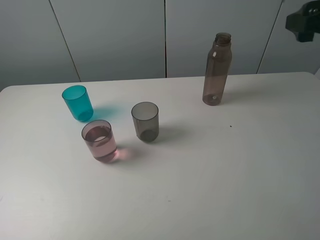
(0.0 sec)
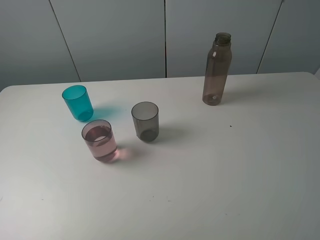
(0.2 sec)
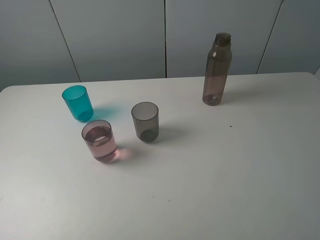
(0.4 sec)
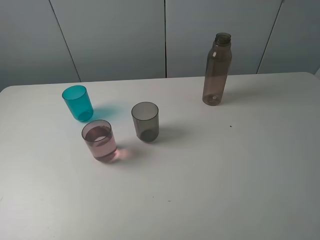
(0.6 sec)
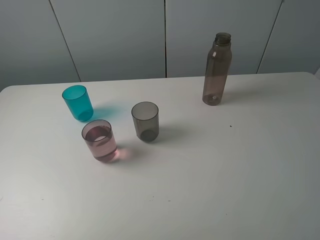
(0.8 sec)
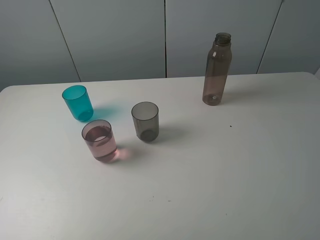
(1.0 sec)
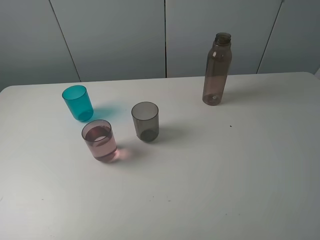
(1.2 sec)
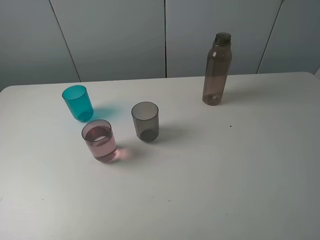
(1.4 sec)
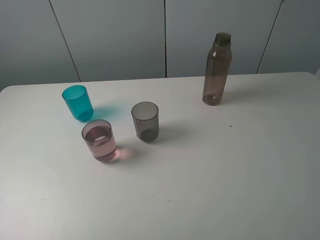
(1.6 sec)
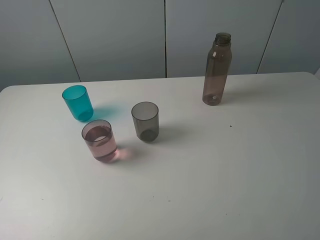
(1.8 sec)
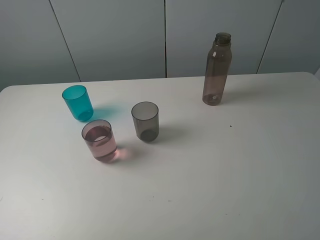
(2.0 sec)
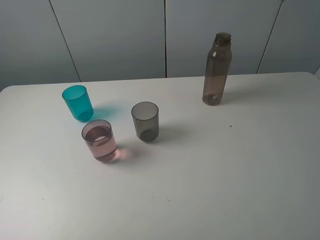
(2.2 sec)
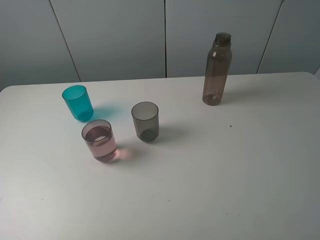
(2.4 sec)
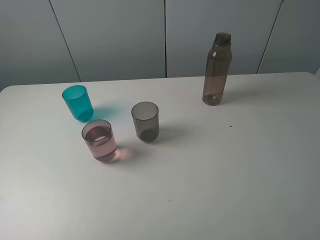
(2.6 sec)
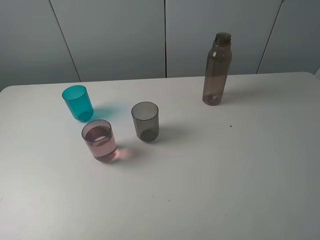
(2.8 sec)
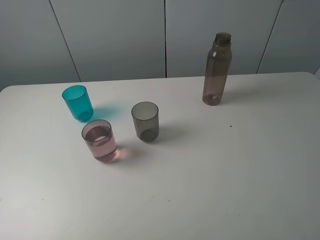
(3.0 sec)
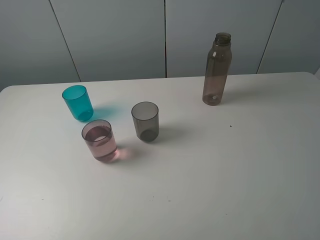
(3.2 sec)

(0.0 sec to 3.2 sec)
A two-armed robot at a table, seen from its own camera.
Task of the whole recording: pick up the bottle filled with water and pour water into the middle cup of the three cups.
0.0 sec - 1.6 sec: The right gripper heads backward, covering some 25 cm.
1.6 sec - 3.2 sec: Both grippers stay put.

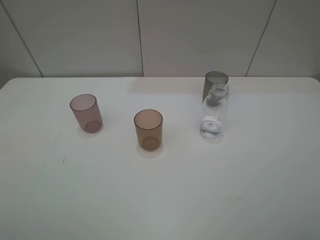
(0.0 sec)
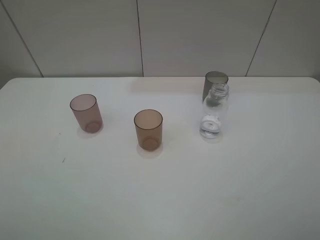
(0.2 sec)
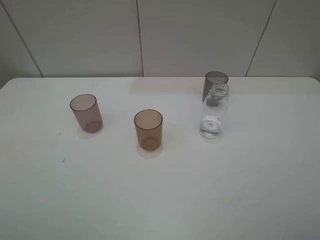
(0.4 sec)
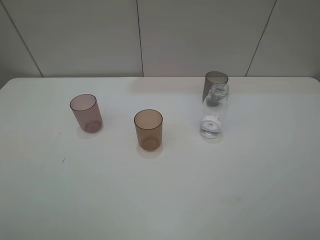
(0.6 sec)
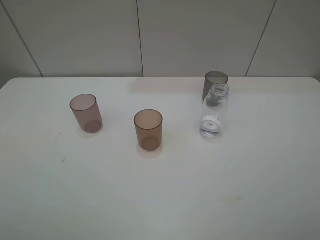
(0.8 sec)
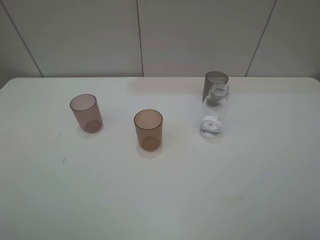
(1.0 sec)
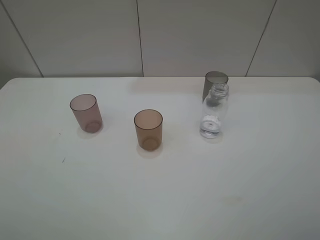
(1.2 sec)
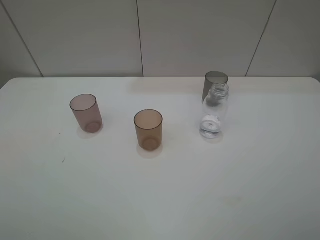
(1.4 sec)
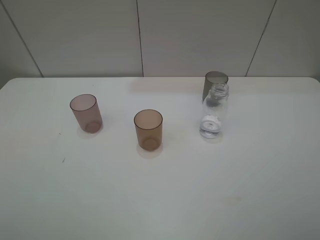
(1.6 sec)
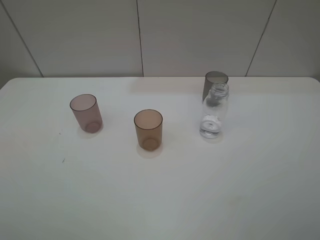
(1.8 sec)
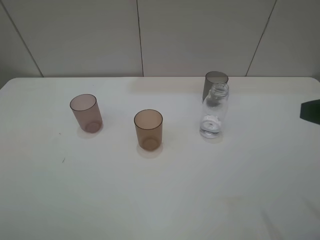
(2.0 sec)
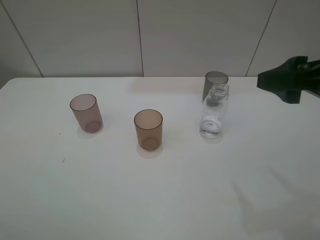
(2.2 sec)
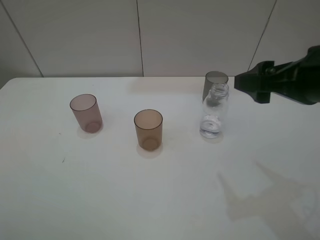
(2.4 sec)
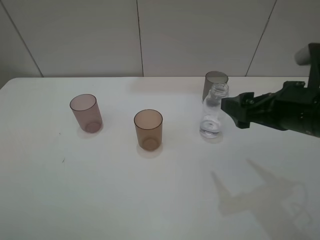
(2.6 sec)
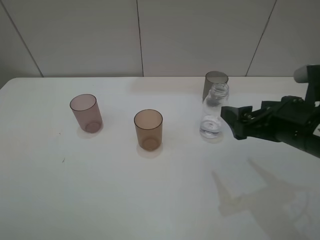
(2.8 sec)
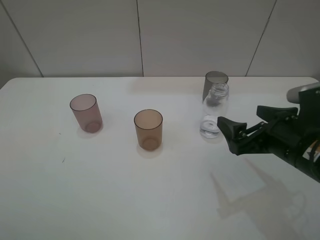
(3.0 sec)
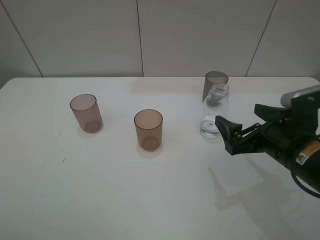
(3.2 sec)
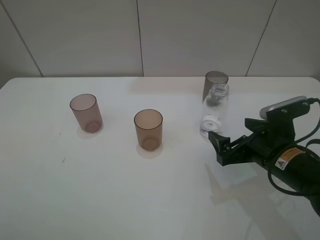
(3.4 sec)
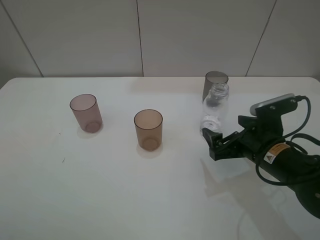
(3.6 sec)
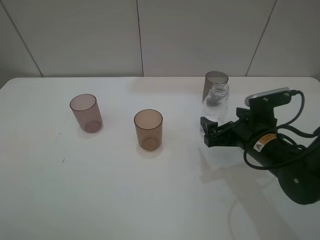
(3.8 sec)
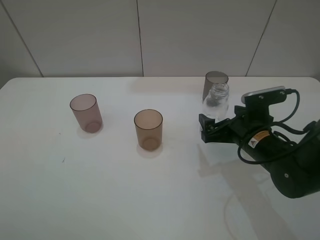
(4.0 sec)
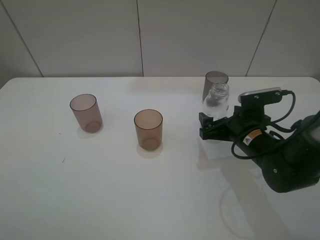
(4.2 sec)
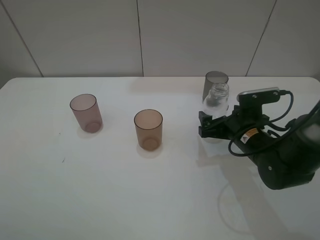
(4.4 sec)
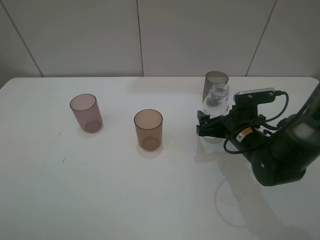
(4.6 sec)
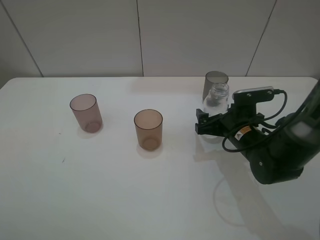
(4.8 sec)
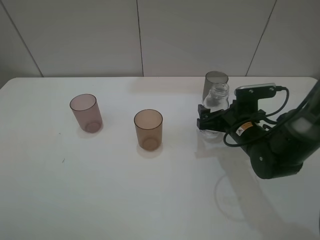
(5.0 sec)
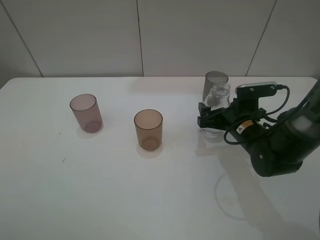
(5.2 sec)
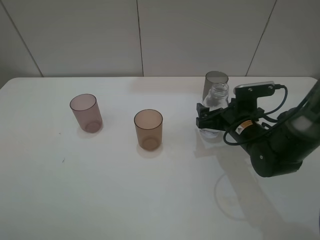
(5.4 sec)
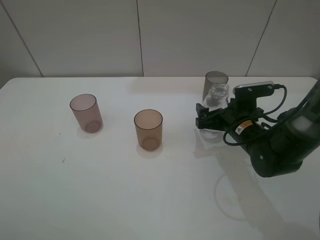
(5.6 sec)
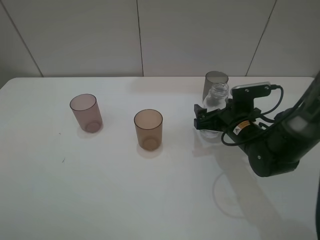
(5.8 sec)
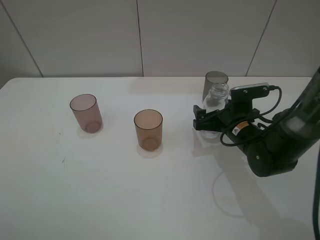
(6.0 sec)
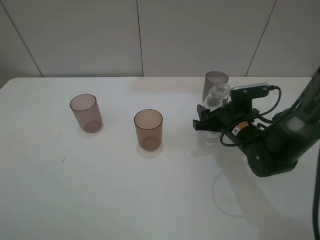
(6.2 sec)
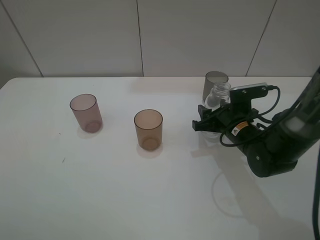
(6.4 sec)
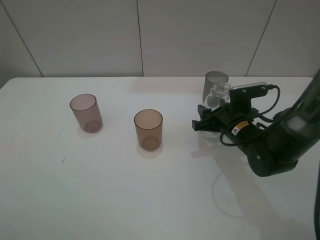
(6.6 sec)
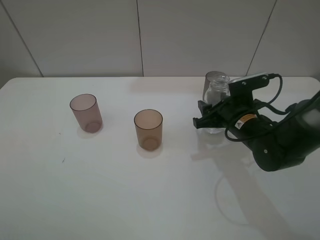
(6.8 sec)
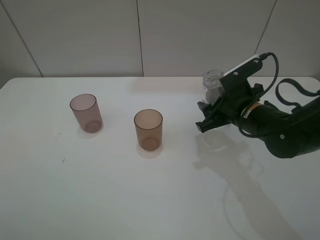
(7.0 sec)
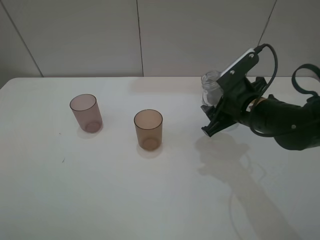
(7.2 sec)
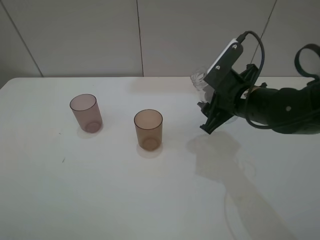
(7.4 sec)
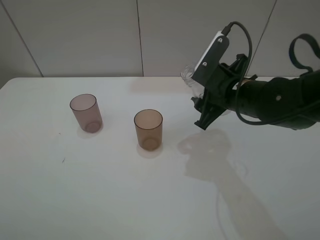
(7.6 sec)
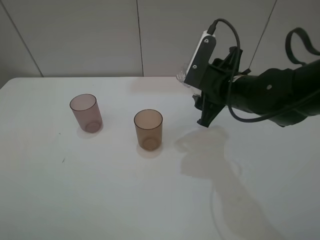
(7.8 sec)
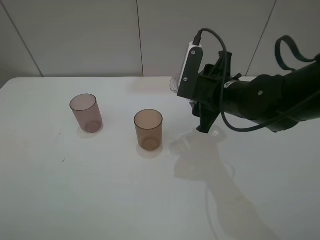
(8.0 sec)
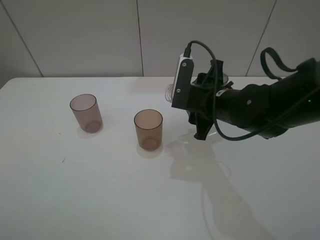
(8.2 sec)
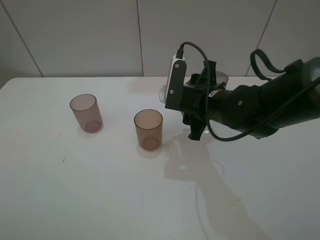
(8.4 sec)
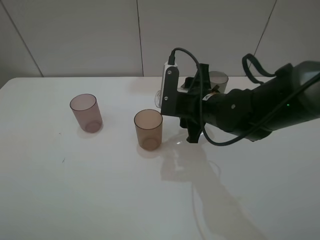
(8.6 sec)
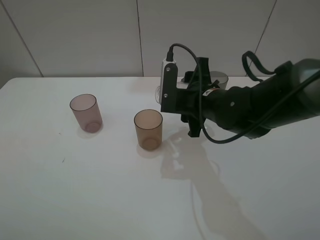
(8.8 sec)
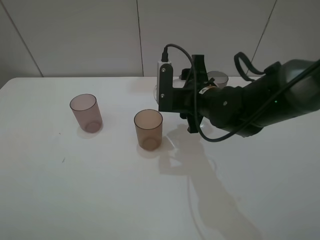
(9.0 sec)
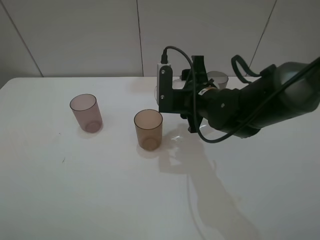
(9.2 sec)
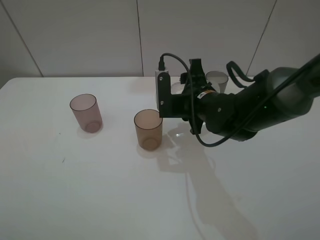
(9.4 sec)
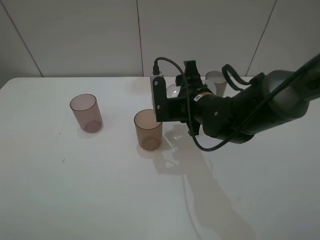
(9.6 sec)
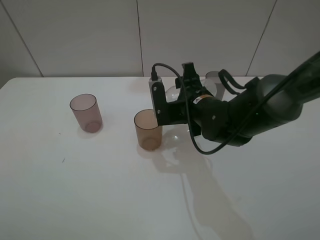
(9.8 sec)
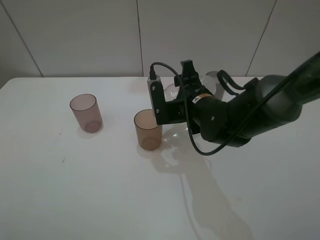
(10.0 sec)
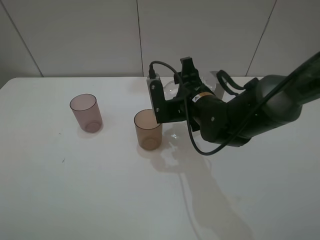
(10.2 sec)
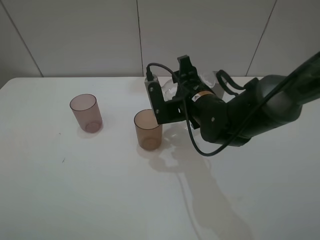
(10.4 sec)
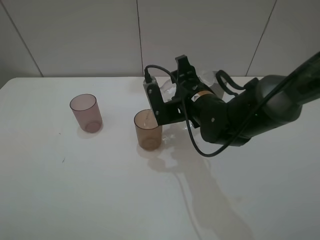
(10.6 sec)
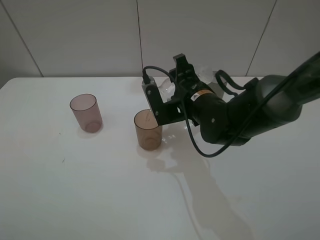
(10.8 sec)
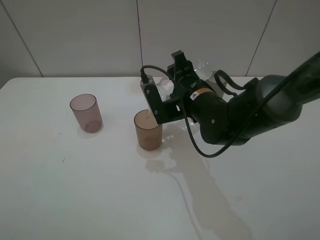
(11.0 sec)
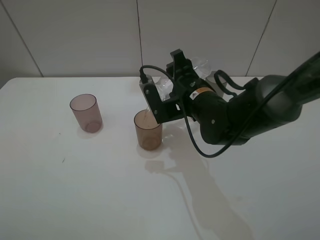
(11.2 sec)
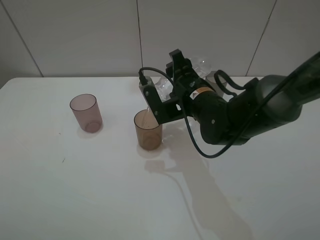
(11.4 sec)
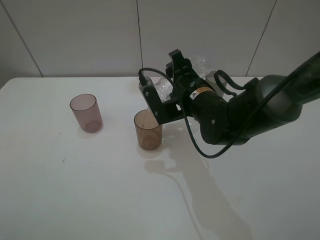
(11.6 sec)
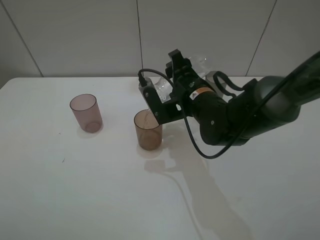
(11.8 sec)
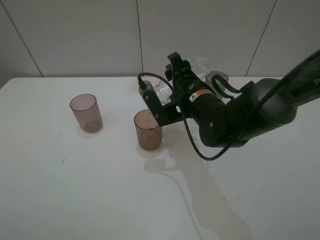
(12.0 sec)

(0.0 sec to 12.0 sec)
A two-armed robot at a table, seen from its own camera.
Task of the whole recording: pick up the bottle filled with water and pour water into the middle cup of the three cups.
Step, 0.0 sec - 6.4 sec: Grasp the transparent bottle with the right gripper.
Step, 6.6 sec - 10.0 sec: Pour water from transparent bottle tobrown cup with the right gripper.
0.0 sec - 1.6 sec: Both grippers stay put.
1.6 sec - 3.0 sec: The right gripper goes some 25 cm forward, downward and to the left.
3.0 sec - 4.4 sec: The right gripper shifts about 10 cm forward and downward.
4.4 sec - 6.0 sec: There are only small adjustments of the grippers.
6.0 sec - 7.6 sec: The right gripper is displaced upward by approximately 10 cm, and closes up.
7.6 sec - 9.0 sec: The right gripper shifts approximately 5 cm to the left.
9.0 sec - 10.4 sec: The grippers make only small movements.
10.4 sec - 12.0 sec: The grippers move only a little.

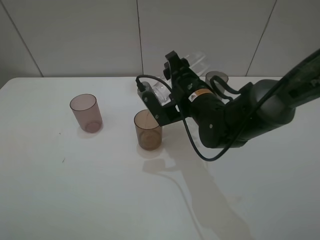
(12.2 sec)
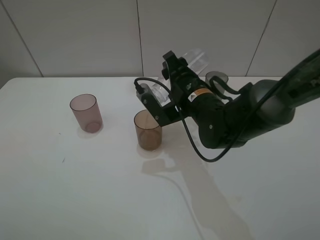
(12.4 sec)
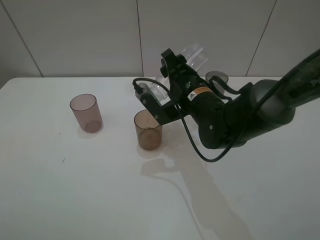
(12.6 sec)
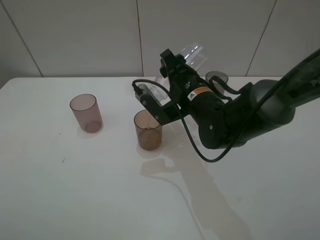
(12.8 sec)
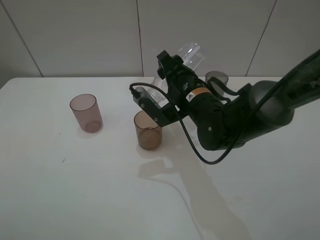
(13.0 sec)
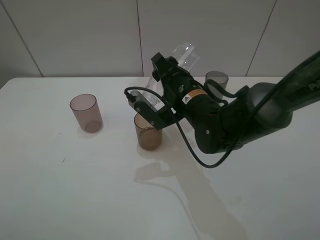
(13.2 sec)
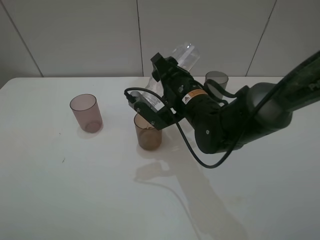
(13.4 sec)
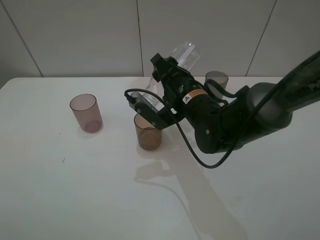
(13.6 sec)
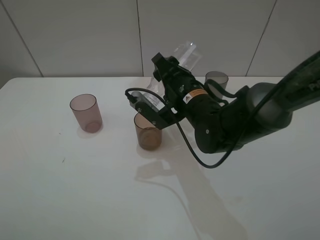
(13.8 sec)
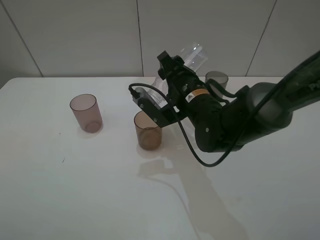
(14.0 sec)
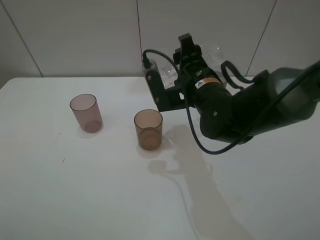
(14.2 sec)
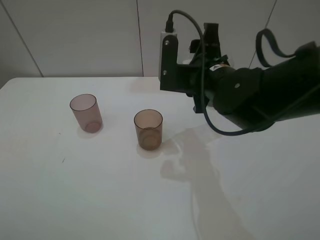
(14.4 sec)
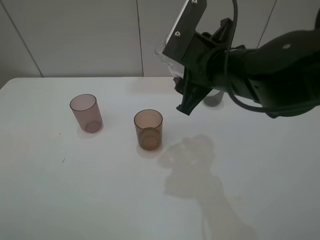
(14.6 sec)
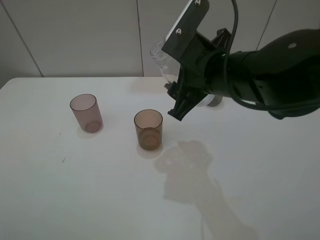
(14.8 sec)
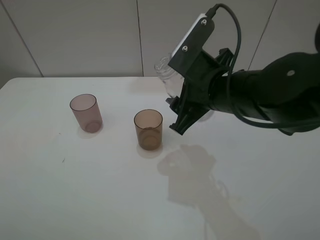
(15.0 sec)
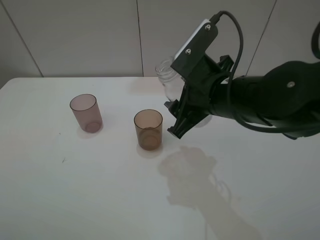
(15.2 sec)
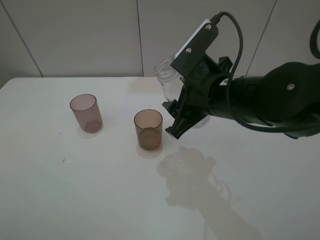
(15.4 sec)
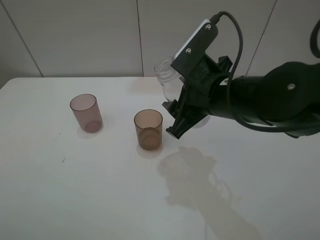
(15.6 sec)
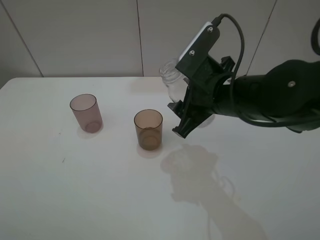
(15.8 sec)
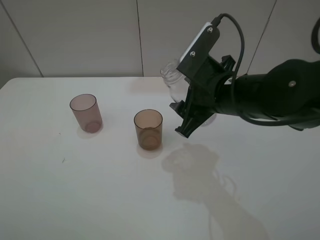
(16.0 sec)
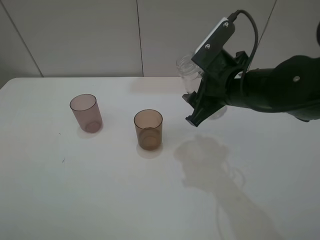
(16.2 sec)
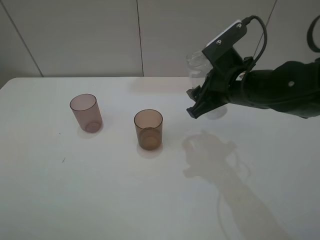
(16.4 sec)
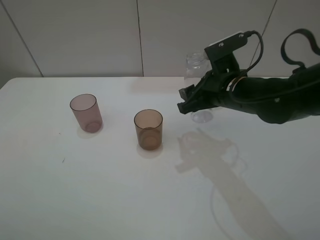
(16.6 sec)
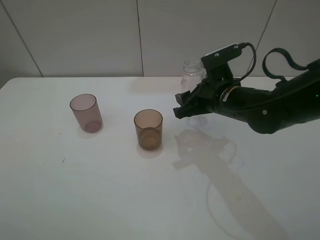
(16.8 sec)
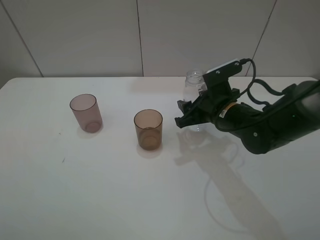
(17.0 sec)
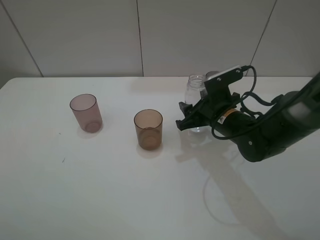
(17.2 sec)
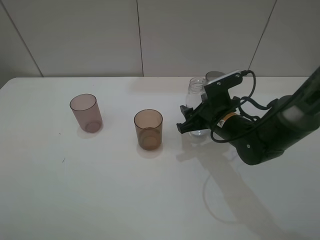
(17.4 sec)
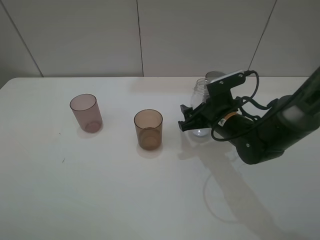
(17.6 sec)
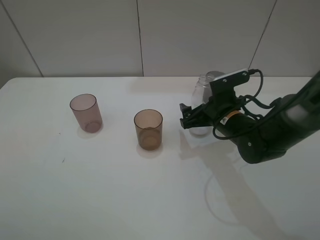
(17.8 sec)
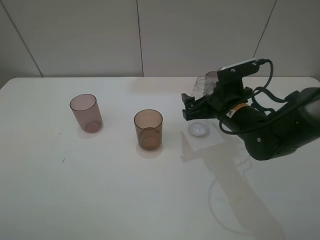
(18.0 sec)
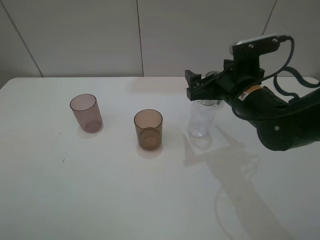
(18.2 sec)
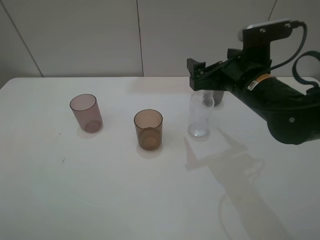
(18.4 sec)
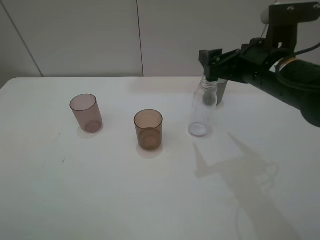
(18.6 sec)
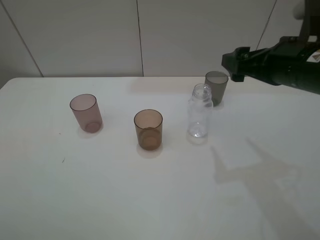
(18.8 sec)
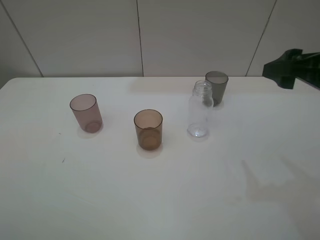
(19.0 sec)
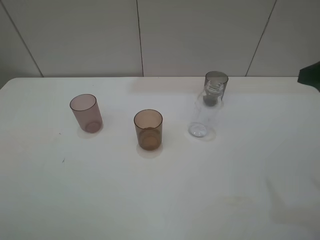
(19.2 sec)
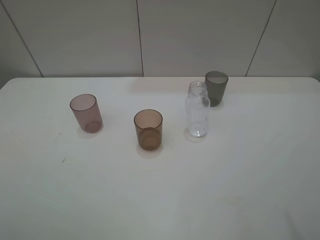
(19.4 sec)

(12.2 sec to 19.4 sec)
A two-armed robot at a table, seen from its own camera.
Task of the whole recording: pick up the bottle filled with water and pour water into the middle cup of the three cups.
Step, 12.2 sec - 18.4 sec: Place the transparent bottle with the right gripper.
12.2 sec - 13.6 sec: The grippers stay close to where they were, moving slightly.
13.6 sec - 15.0 sec: The right gripper moves upward and backward, some 10 cm.
15.0 sec - 16.6 sec: The right gripper is displaced forward by roughly 5 cm.
16.6 sec - 18.0 sec: The right gripper opens its fingers.
18.0 sec - 19.4 sec: The right gripper shifts about 30 cm backward, upward and to the right.
